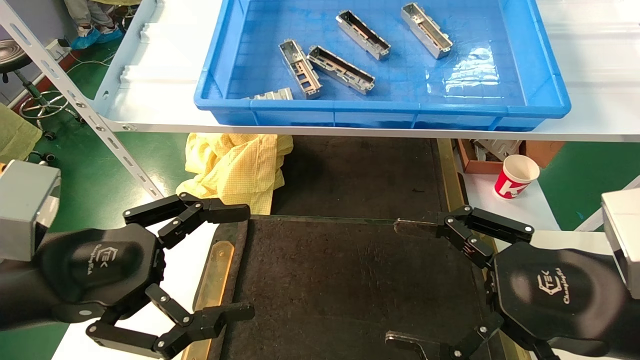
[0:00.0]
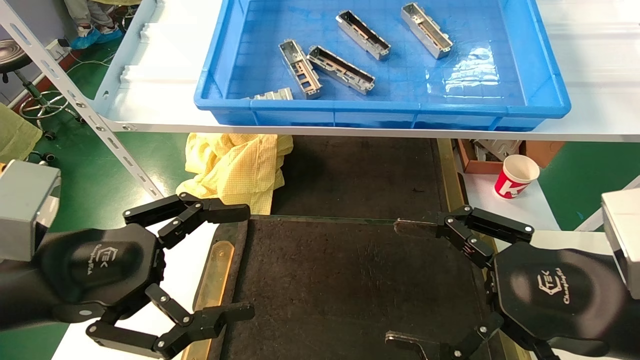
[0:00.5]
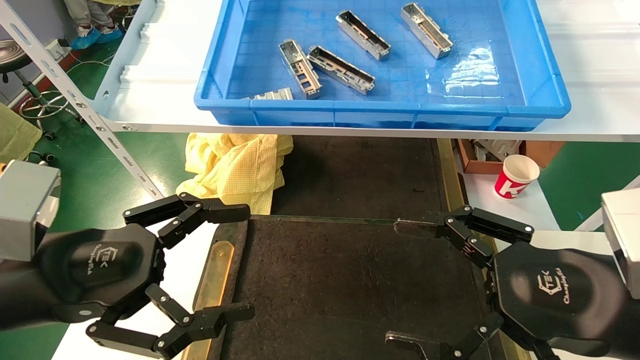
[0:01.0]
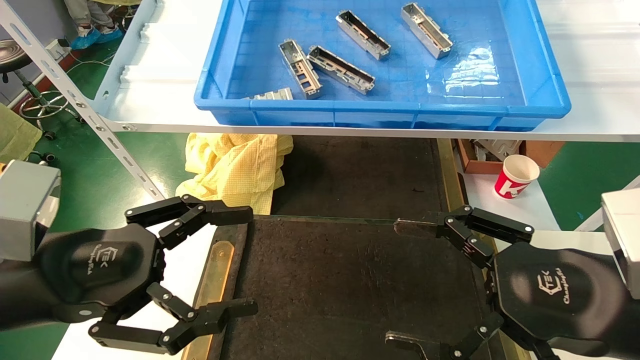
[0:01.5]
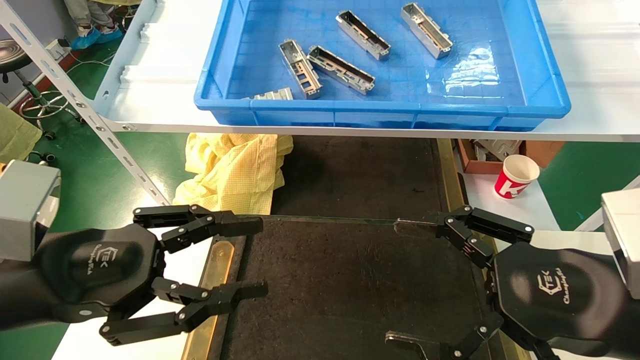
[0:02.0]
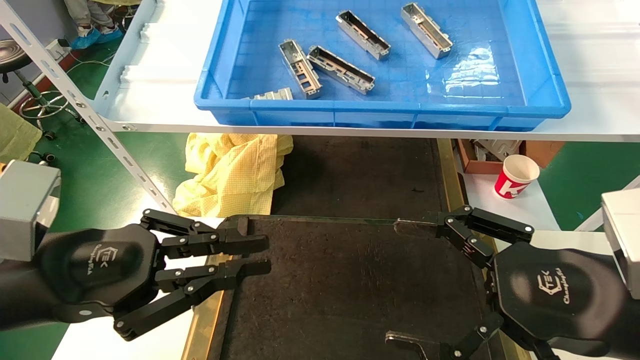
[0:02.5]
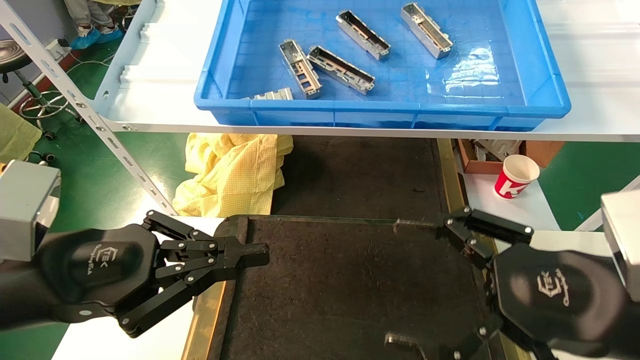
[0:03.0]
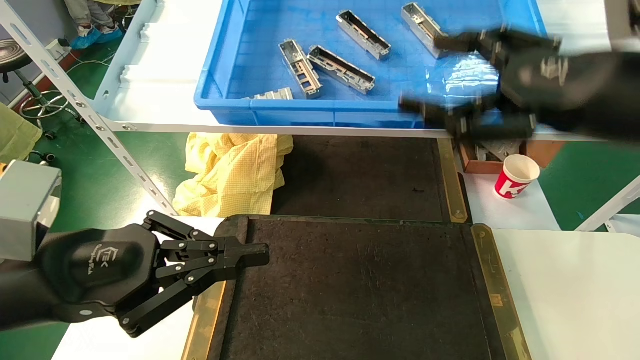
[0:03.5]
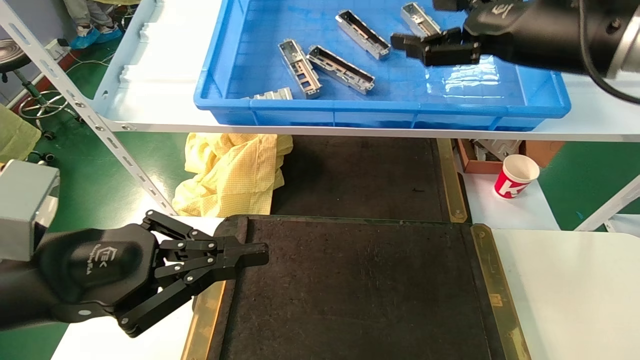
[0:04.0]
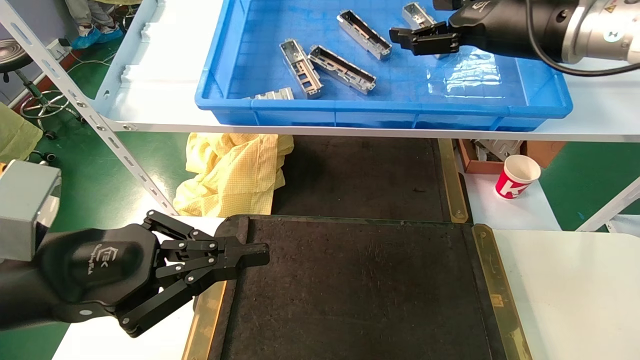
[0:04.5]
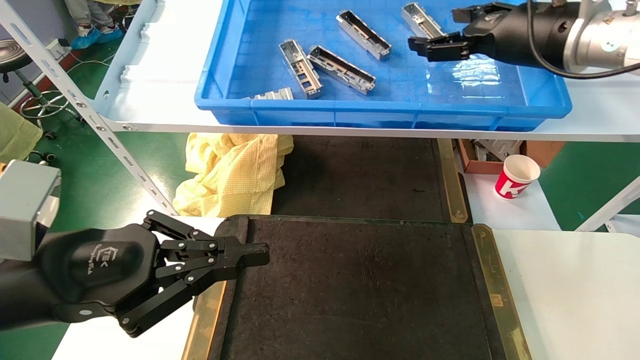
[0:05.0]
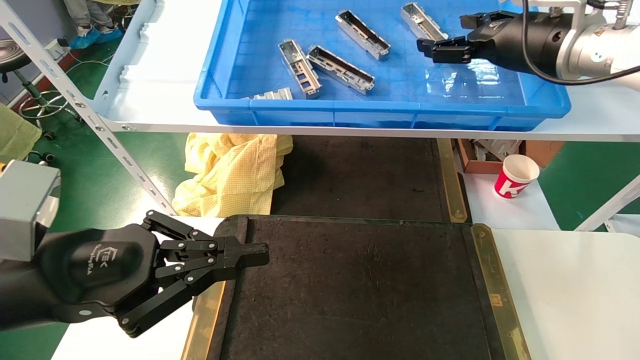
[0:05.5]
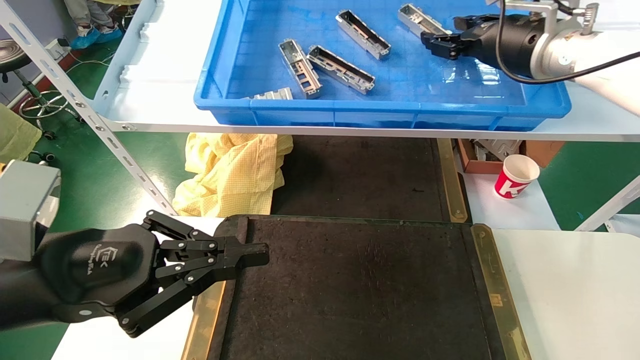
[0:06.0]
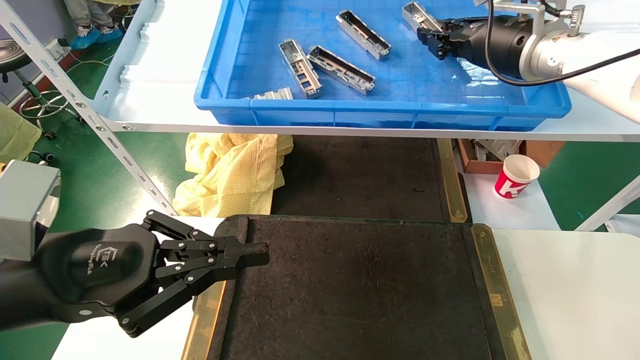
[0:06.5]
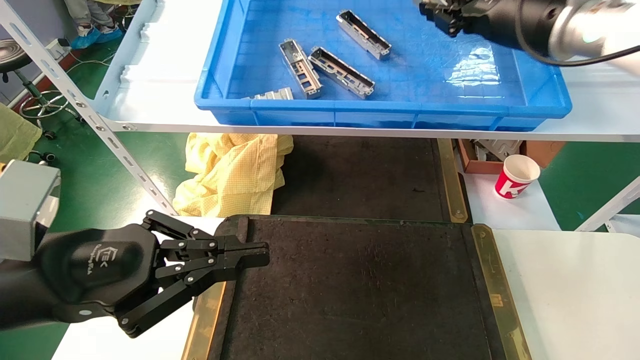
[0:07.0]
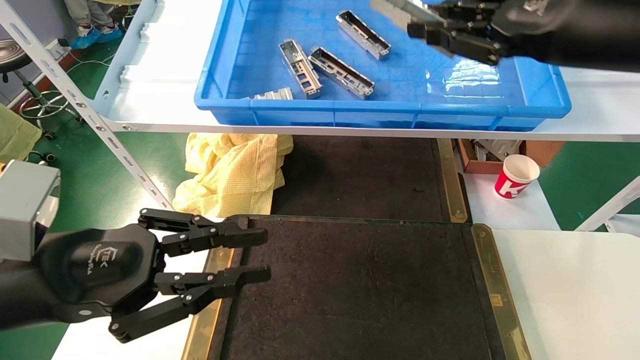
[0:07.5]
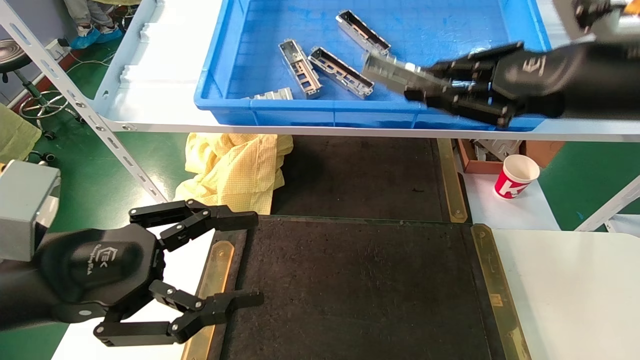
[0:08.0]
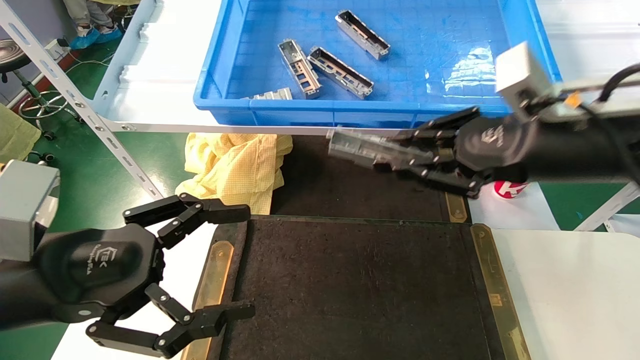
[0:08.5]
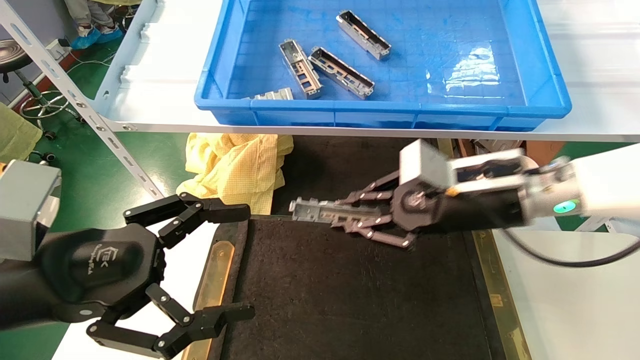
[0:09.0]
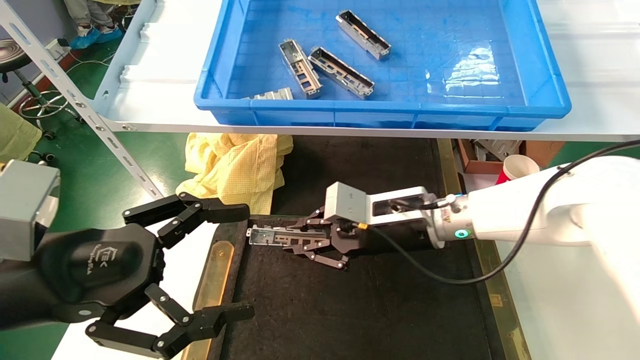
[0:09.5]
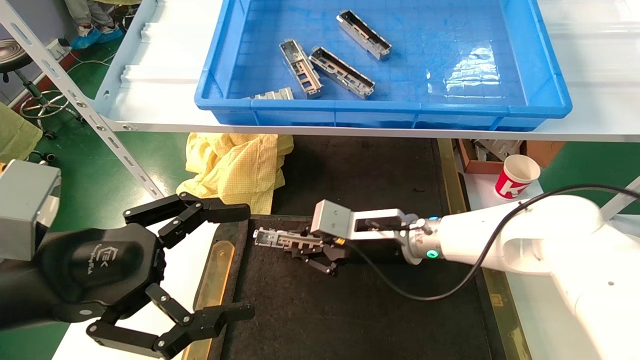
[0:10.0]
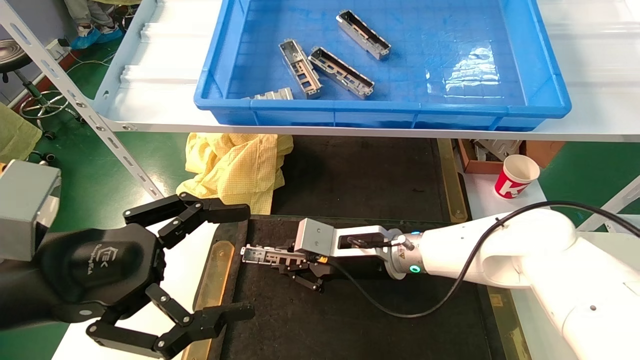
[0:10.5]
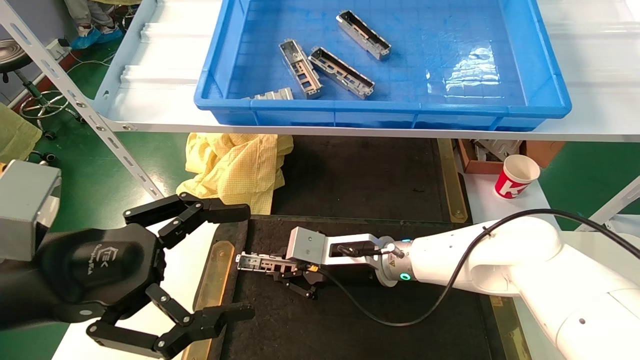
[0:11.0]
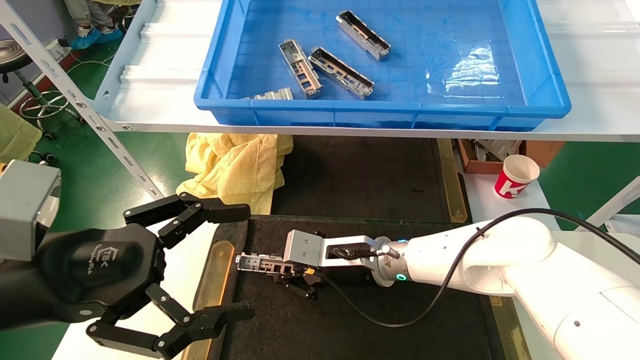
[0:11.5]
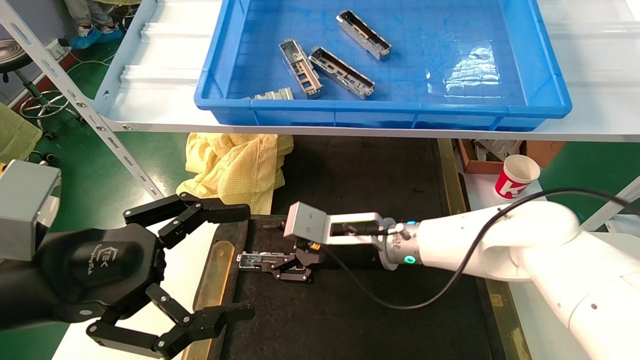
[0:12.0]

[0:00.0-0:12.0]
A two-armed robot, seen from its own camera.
Task of the whole recording: grasp the part and place them on the black container.
Step, 0:03.5 to 0:06.0: Pick up and lift the front USB bracket from the feeding area.
Step, 0:06.5 to 0:11.5: Place the front USB bracket into the box.
0:00.0 to 0:02.0: The left gripper closes its fingers.
0:02.0 to 0:04.0: The right gripper heads upward and forward, covering some 25 cm. The left gripper closes its fingers.
0:04.0 to 0:06.0: The right gripper travels forward by roughly 10 cm, and closes its fingers.
0:06.0 to 0:08.0: The right gripper is displaced backward by approximately 15 cm, and closes up, while the left gripper opens its fingers.
0:08.0 to 0:10.0: The left gripper opens its fingers. The right gripper shifts approximately 30 cm downward, to the left and forward.
0:10.0 to 0:12.0: The grippers move only a little.

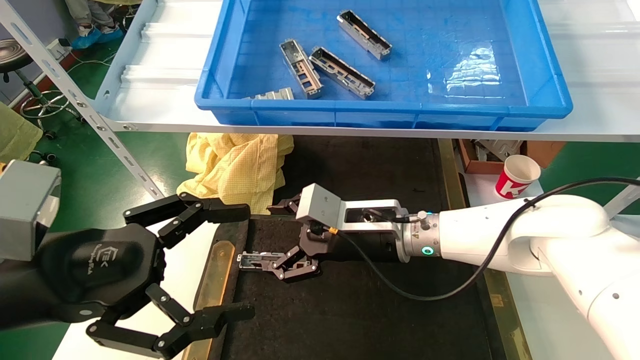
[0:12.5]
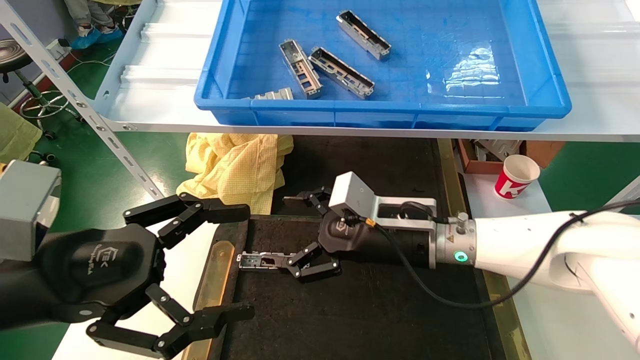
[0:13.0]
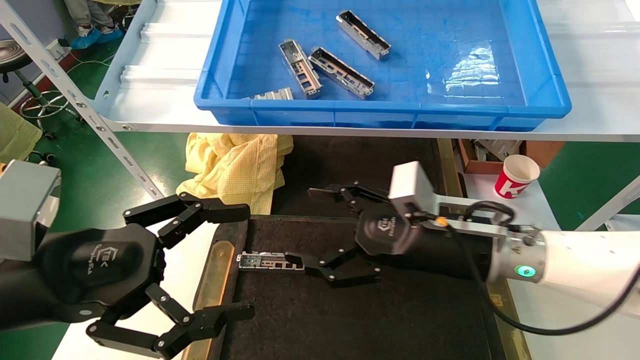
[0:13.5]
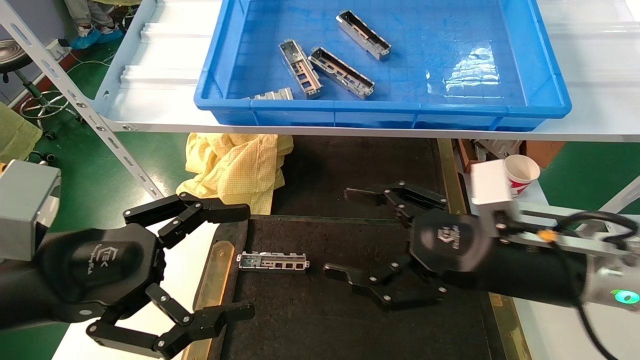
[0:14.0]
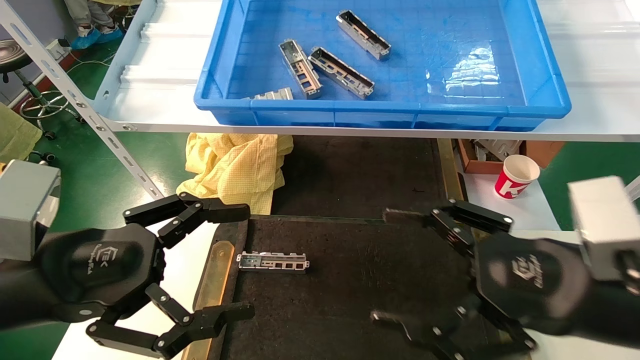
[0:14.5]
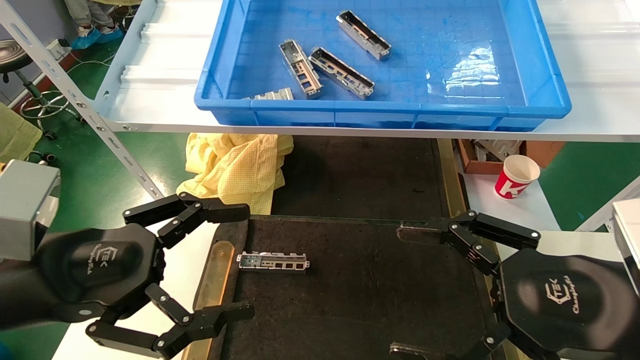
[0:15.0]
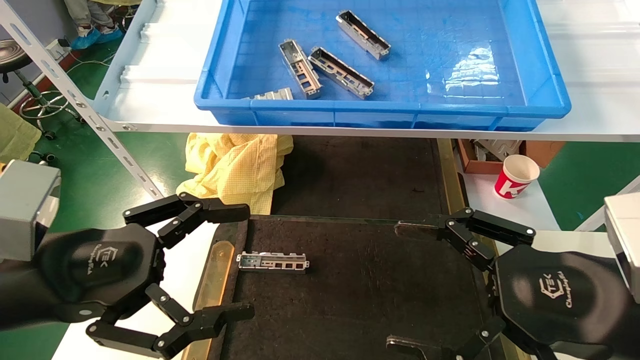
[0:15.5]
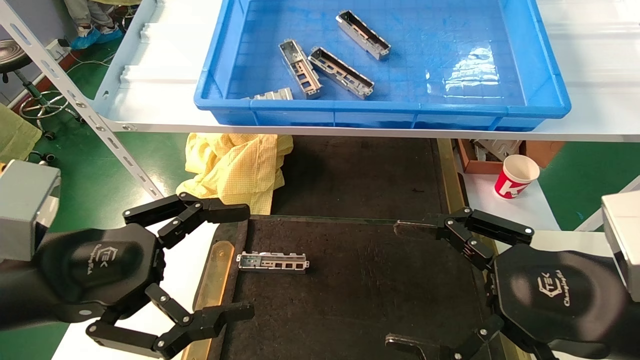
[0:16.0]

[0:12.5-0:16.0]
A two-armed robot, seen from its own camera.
Task of the whole recording: grasp the part and place them on the black container.
0:12.5 to 0:14.5: The right gripper goes roughly 25 cm backward and to the right.
0:14.5 to 0:16.0: There are only small adjustments of the grippers.
